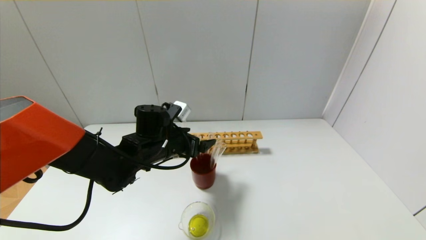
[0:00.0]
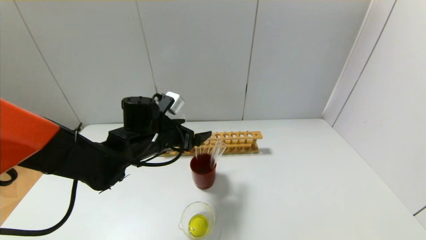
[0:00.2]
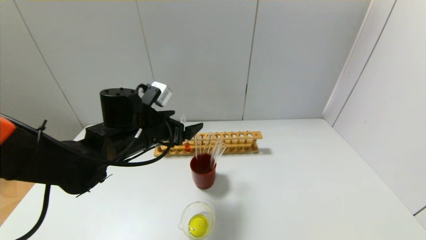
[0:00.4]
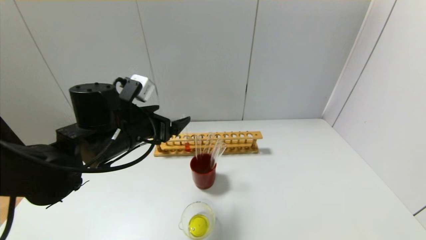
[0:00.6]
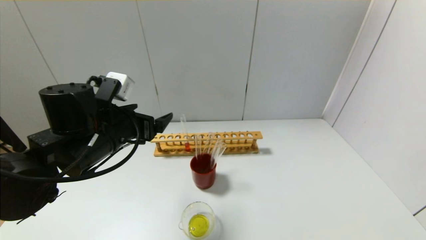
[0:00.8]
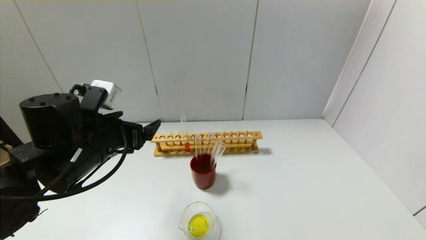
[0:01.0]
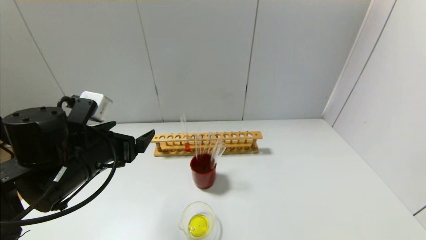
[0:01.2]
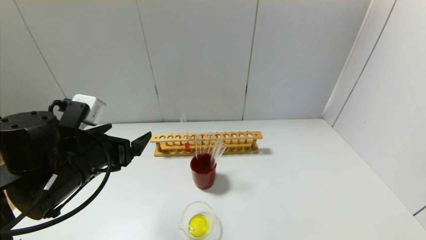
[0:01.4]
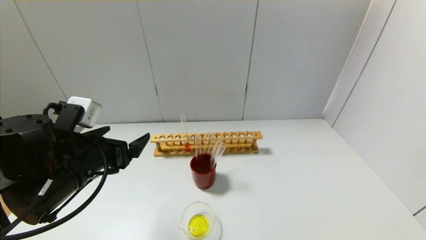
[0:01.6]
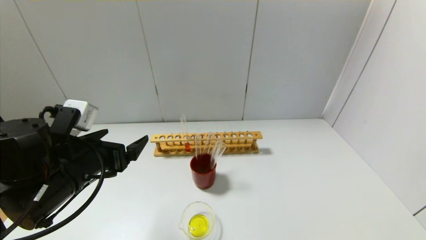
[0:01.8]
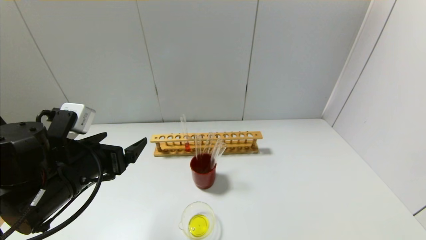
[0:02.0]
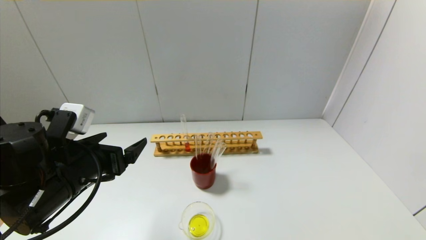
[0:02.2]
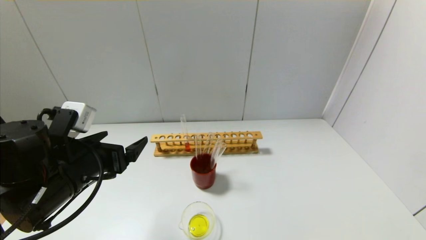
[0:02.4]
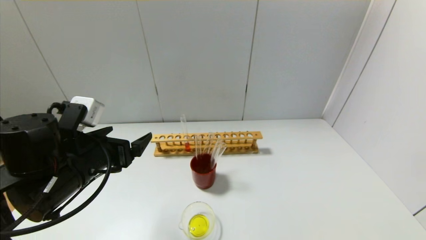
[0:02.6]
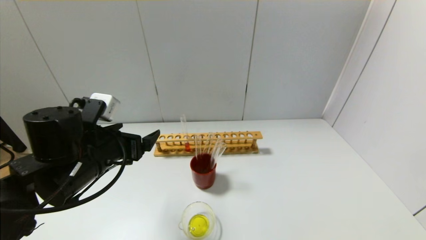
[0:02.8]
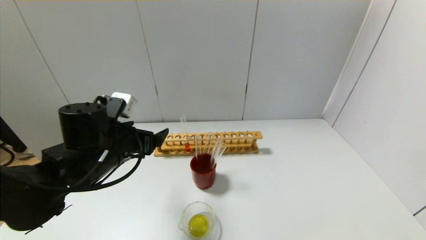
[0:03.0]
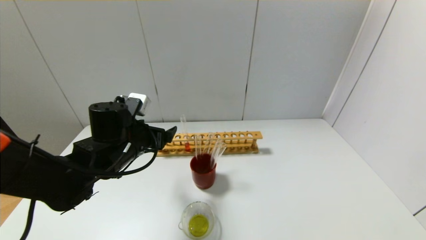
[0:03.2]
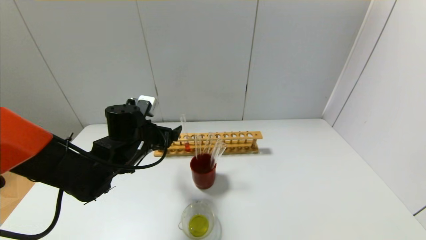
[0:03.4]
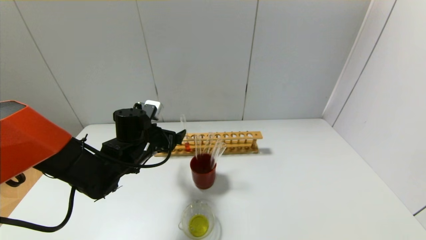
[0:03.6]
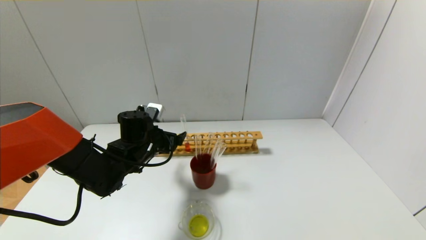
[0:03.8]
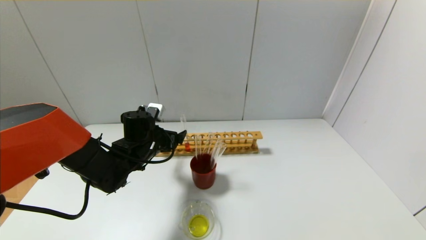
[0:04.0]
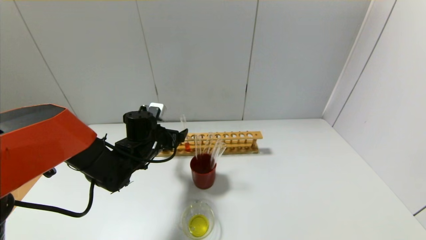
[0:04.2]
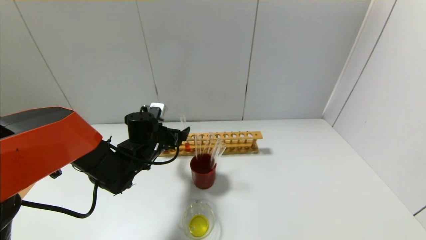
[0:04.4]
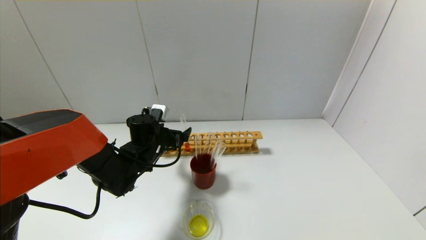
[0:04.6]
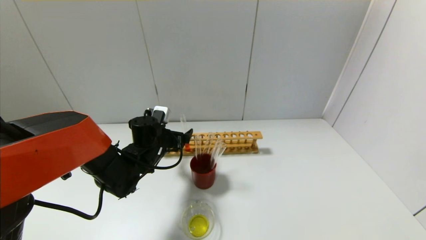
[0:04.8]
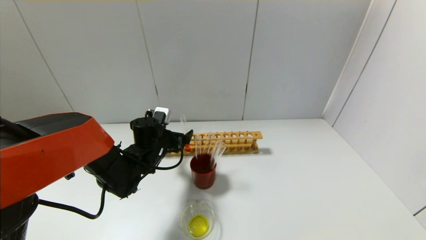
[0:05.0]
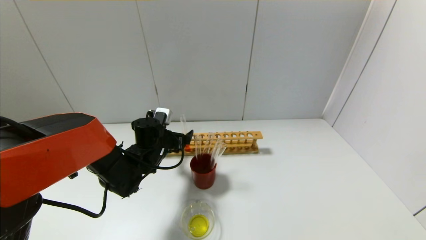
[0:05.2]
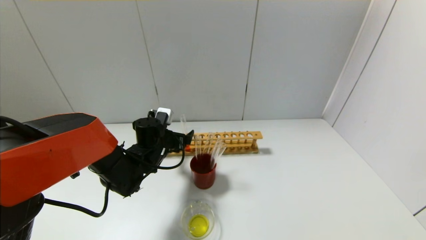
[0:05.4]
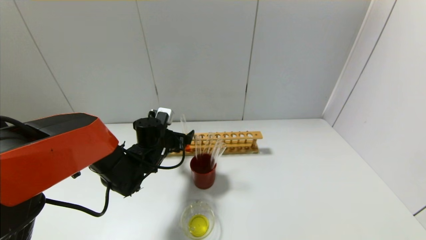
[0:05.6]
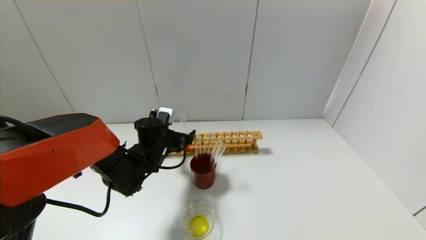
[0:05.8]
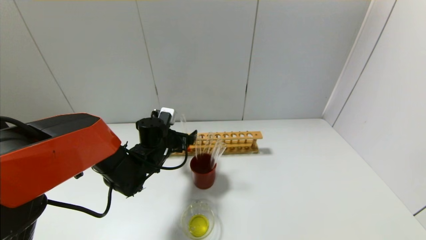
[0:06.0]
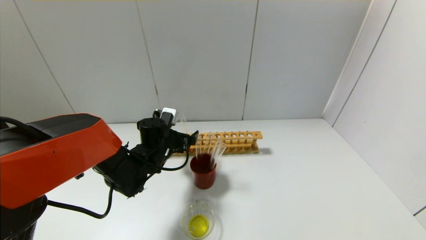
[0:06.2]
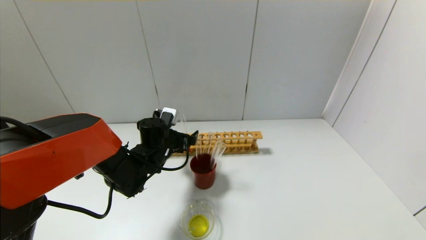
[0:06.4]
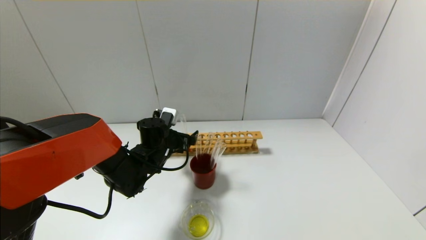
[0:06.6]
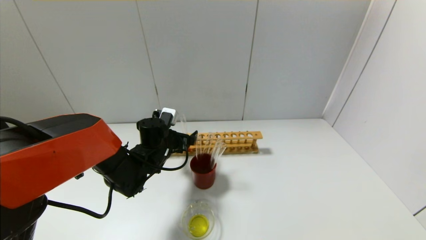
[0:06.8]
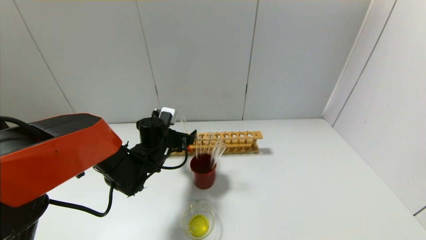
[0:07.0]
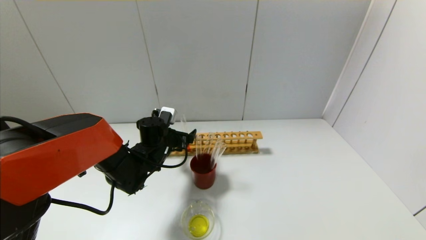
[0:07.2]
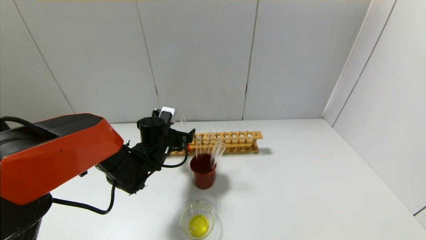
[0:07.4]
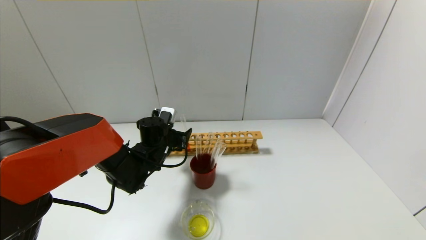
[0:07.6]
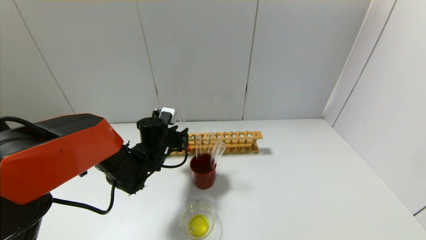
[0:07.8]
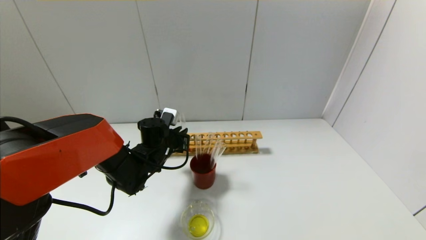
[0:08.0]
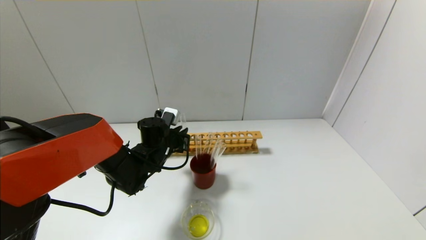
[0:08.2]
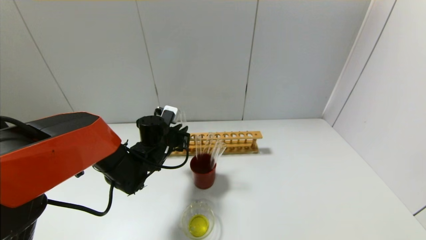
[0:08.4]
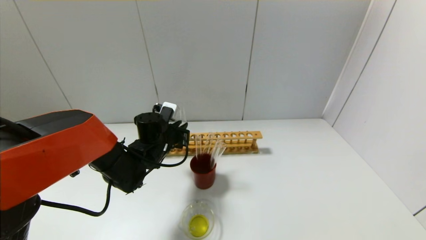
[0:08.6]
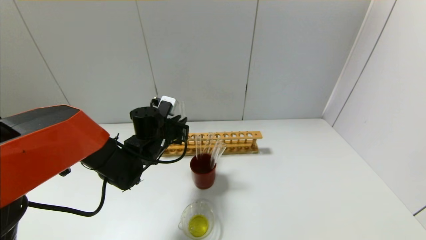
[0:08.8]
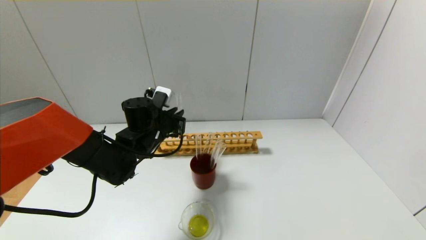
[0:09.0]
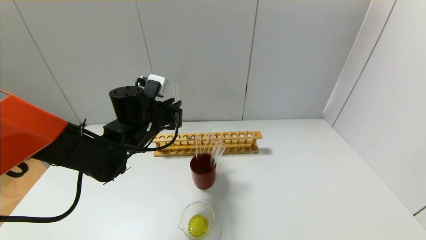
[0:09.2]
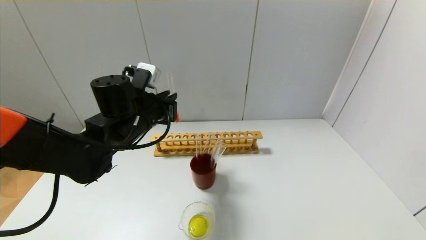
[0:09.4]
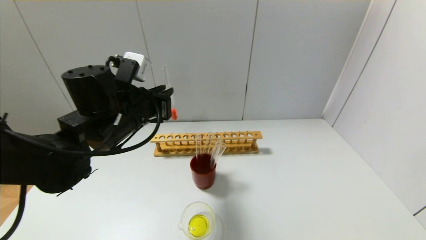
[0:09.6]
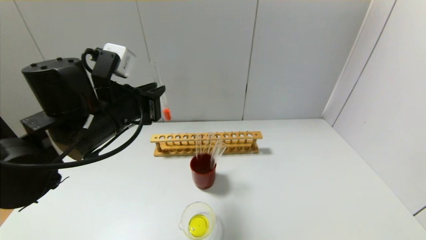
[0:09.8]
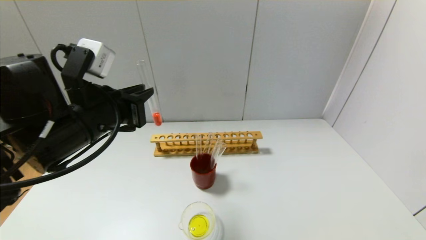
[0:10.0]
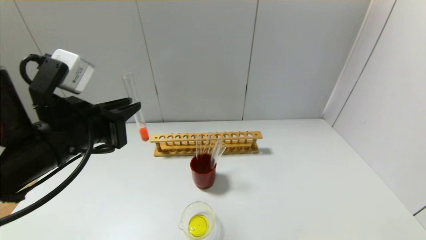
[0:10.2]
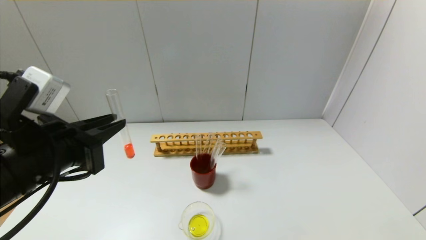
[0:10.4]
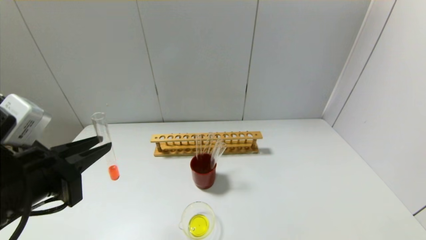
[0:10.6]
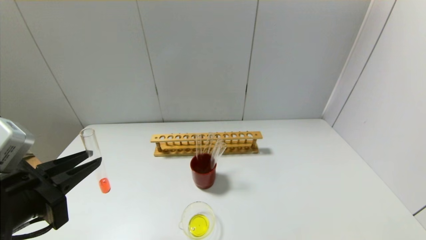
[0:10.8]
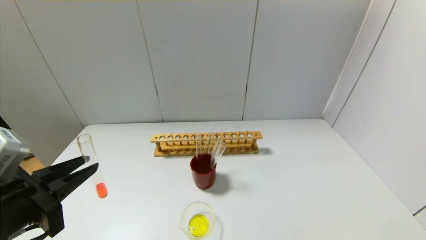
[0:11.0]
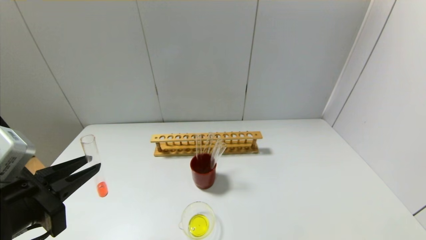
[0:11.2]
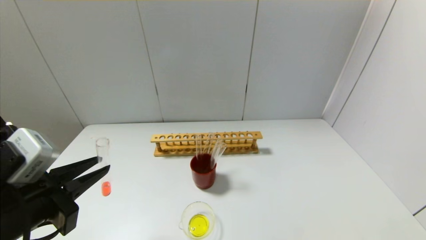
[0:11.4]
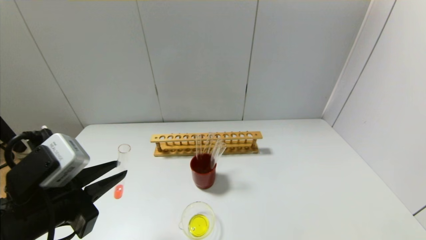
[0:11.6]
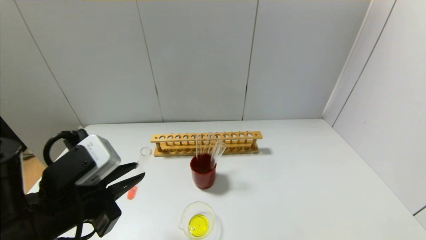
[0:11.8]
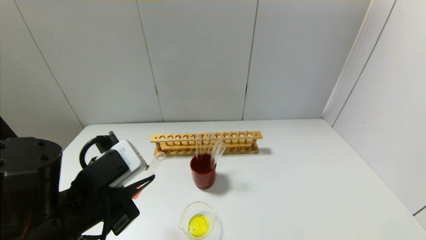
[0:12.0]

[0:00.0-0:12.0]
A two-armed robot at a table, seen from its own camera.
Step, 0:00.0 to 0:08.0: Grasp the red reagent with the left gripper.
0:00.0 to 0:01.6: The left gripper shifts some 15 cm backward, to the left and upward.
0:01.6 to 0:03.0: The left gripper goes about 5 cm forward.
0:03.0 to 0:04.4: The left gripper moves forward and downward, about 10 cm.
0:04.4 to 0:06.0: The grippers stay close to where they were, moving slightly.
0:06.0 to 0:07.6: The left gripper closes up.
0:07.6 to 0:09.0: The left gripper shifts some 5 cm upward, and closes up.
0:09.0 to 0:10.4: The left gripper goes approximately 25 cm backward and upward.
0:10.4 to 0:12.0: The left gripper travels downward by about 5 cm.

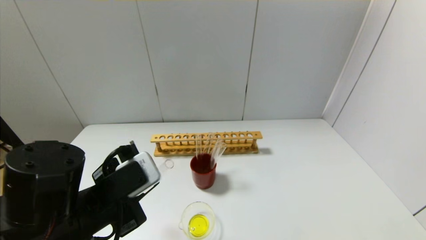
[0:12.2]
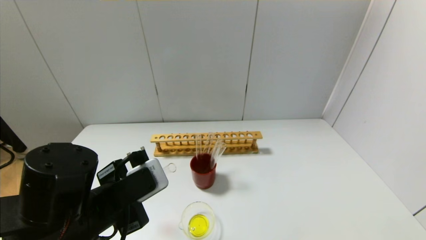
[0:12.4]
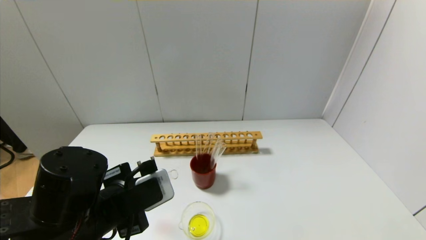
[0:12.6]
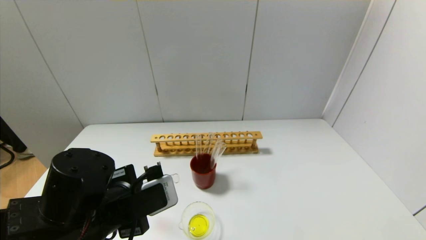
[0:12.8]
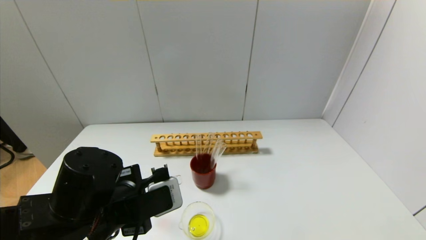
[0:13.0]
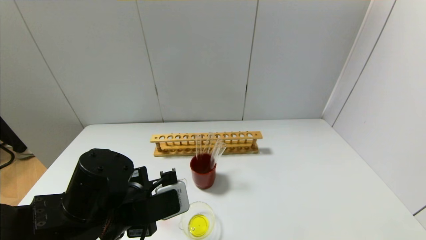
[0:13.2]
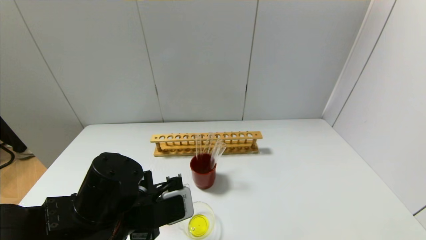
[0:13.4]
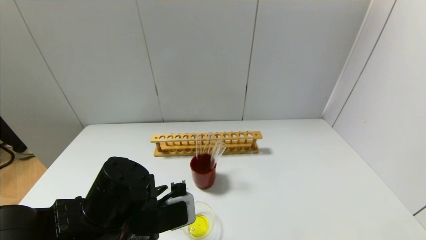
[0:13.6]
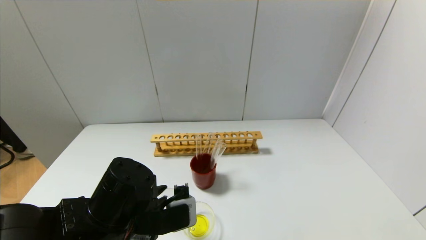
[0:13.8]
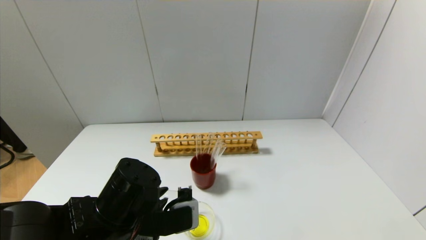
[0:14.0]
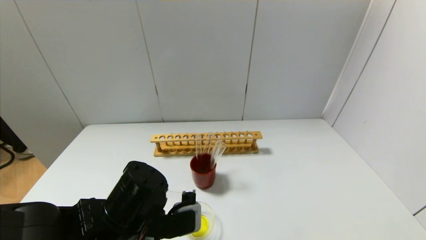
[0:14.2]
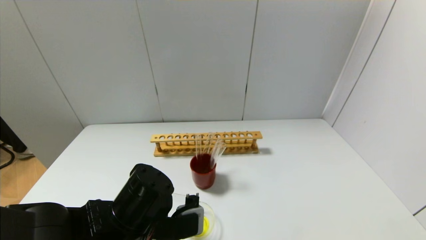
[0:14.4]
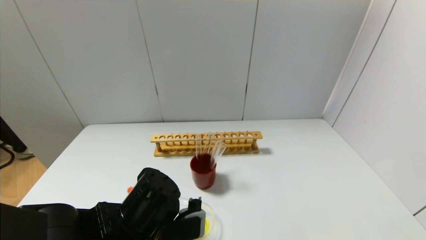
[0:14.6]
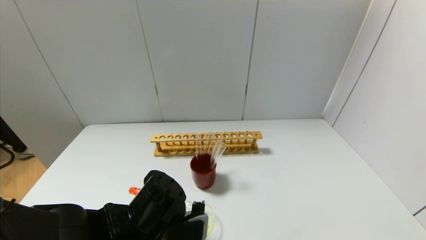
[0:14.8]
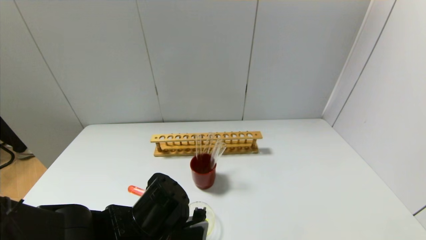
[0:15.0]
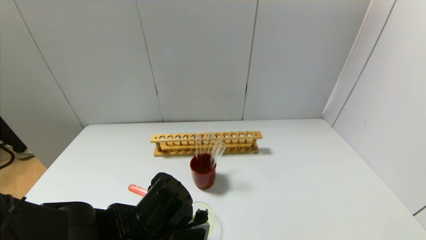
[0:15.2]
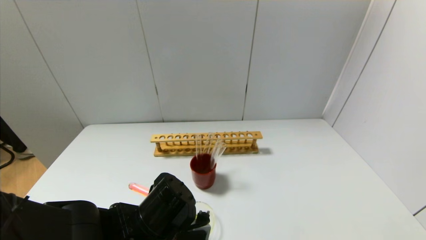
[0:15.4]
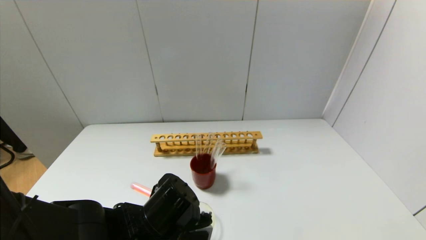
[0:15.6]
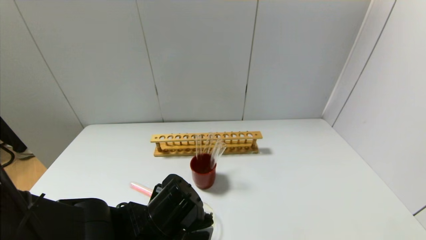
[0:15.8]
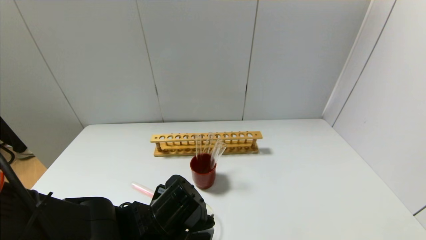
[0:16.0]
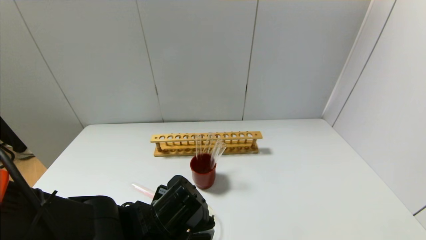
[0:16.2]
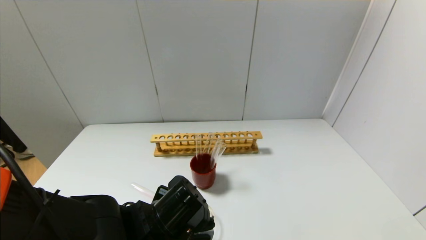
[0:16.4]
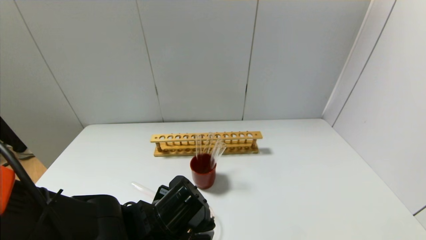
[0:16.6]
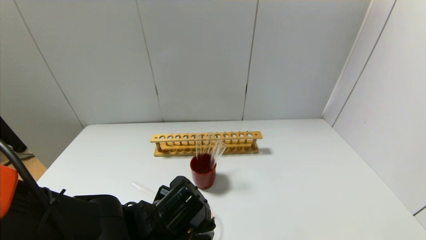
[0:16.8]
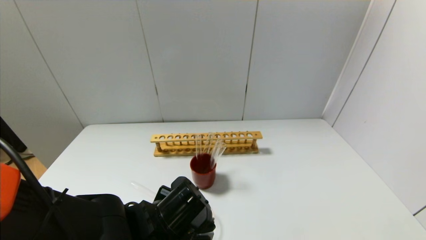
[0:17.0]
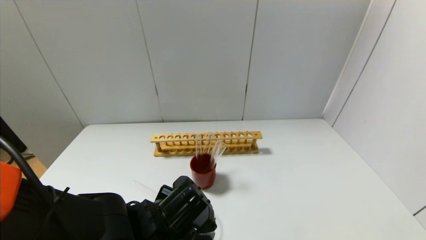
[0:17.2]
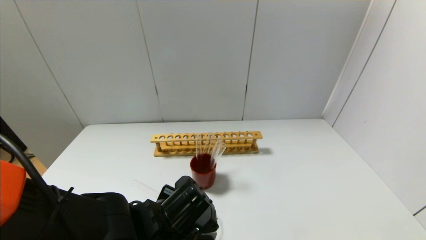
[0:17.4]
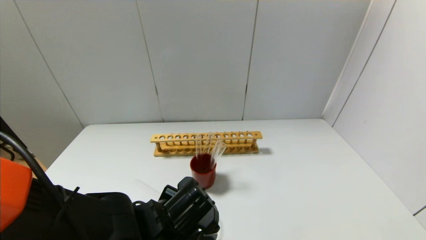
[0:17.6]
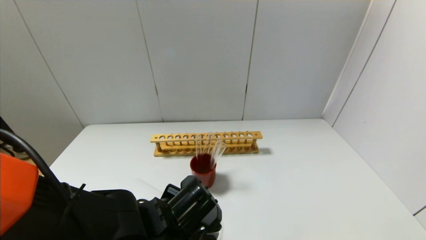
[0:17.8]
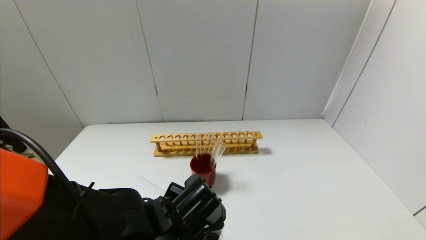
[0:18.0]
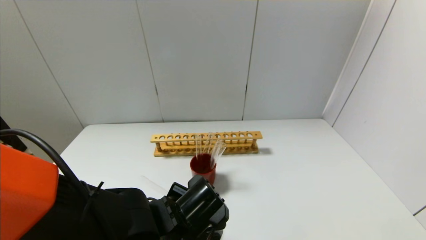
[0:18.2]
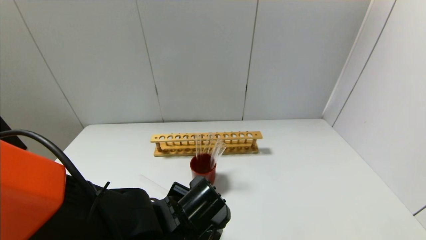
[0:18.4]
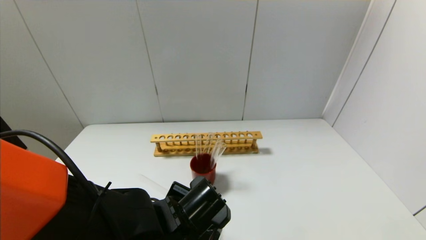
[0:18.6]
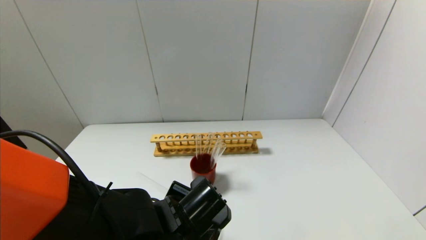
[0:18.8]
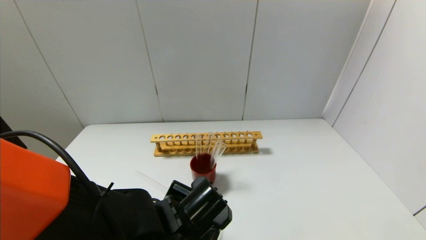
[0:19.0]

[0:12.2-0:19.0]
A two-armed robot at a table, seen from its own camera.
0:12.2 to 0:13.6: The left gripper ends up about 5 cm from where it was.
0:15.0 to 0:17.6: There are only small adjustments of the grippers.
0:17.6 to 0:19.0: The grippers move only a little.
